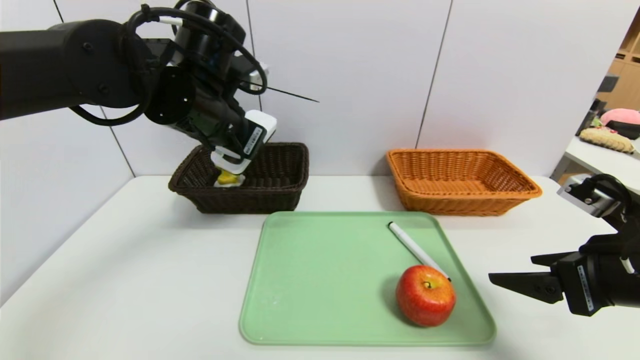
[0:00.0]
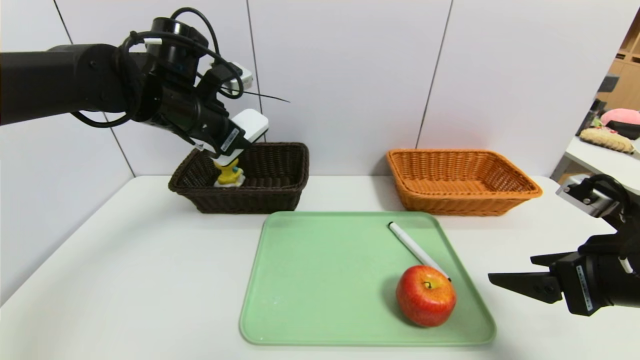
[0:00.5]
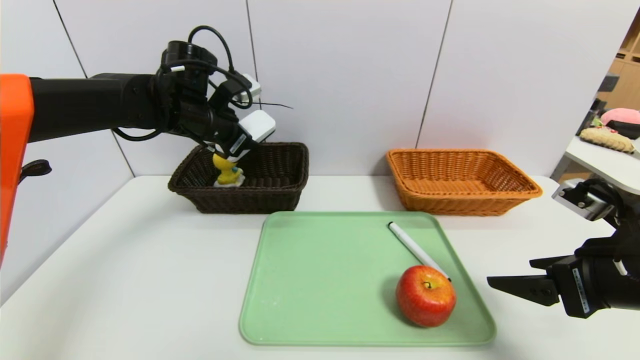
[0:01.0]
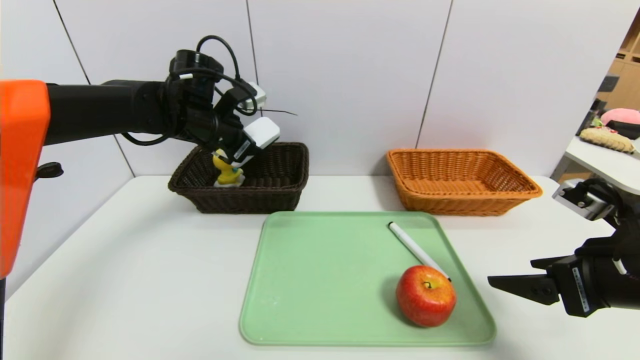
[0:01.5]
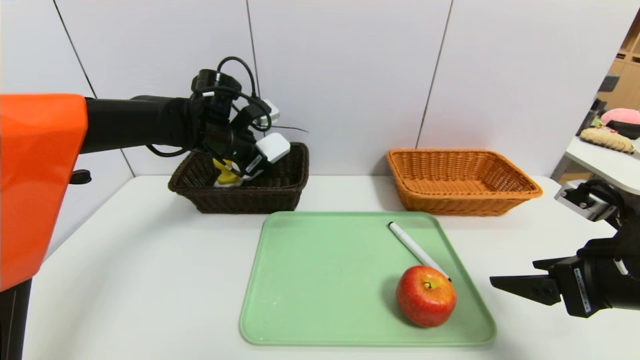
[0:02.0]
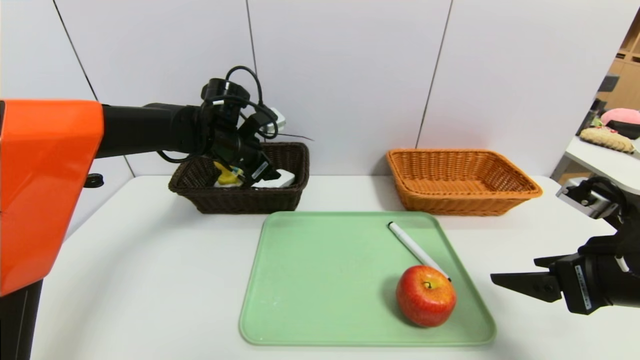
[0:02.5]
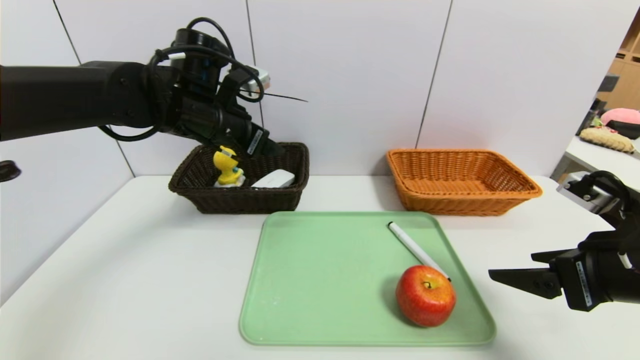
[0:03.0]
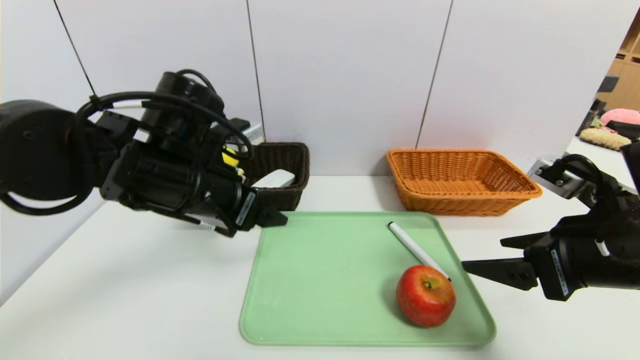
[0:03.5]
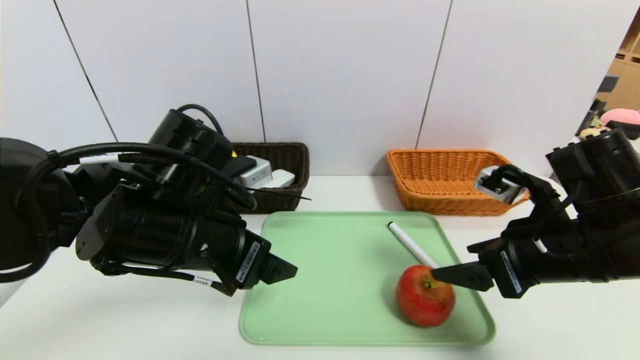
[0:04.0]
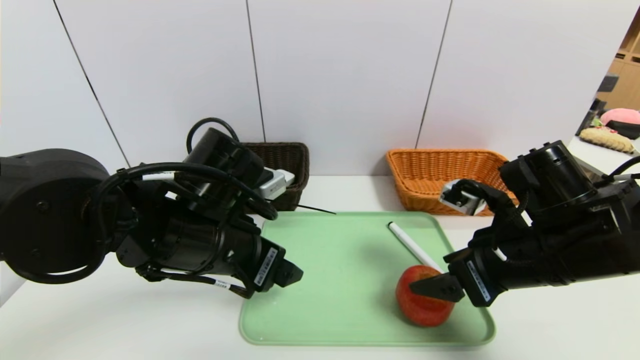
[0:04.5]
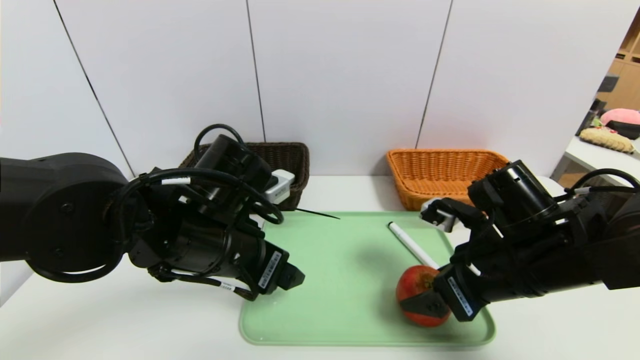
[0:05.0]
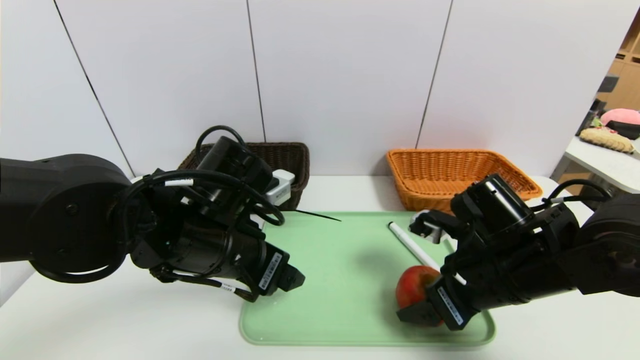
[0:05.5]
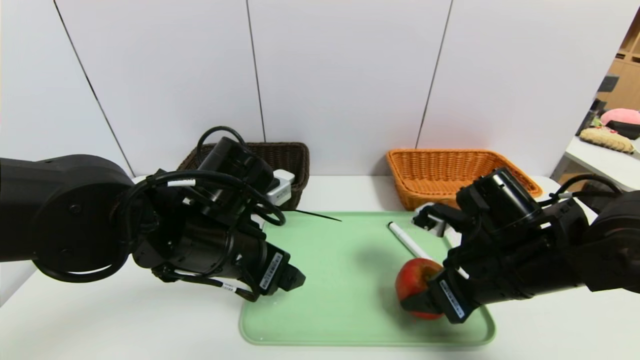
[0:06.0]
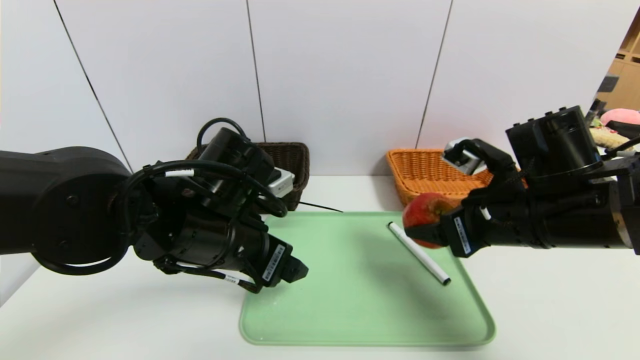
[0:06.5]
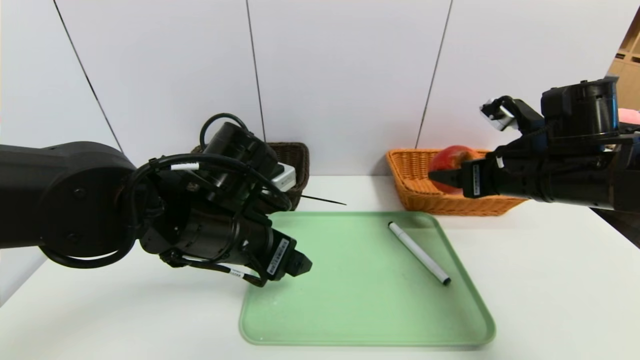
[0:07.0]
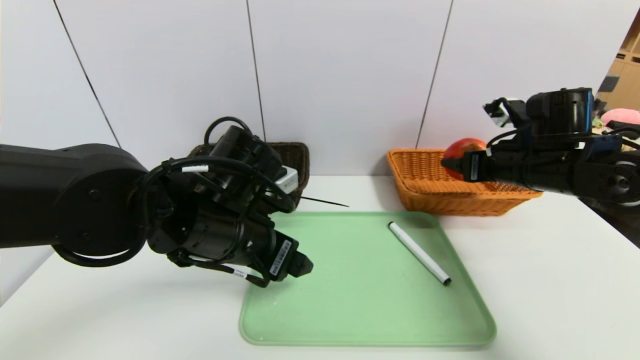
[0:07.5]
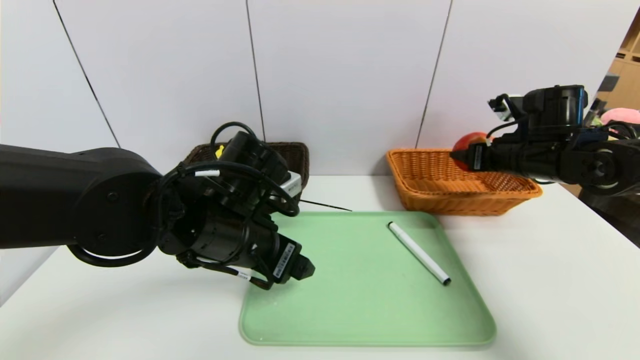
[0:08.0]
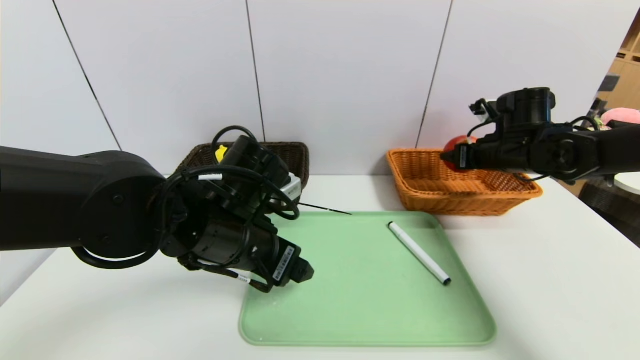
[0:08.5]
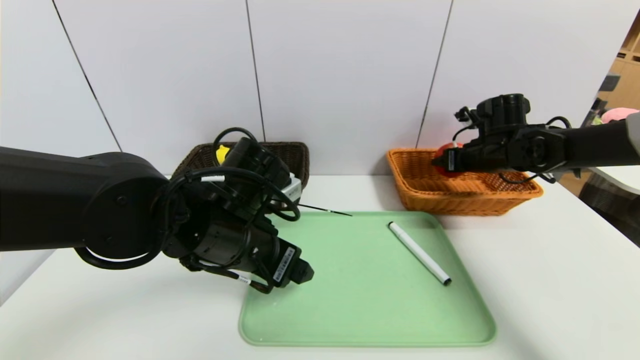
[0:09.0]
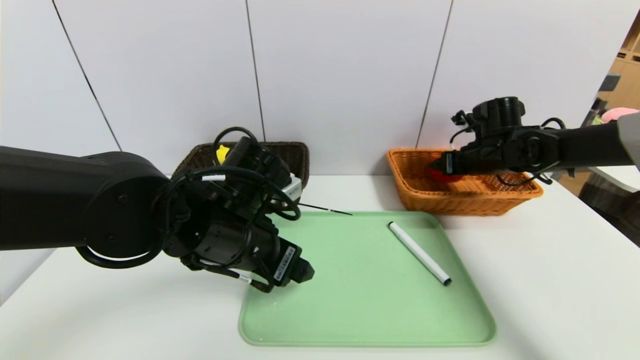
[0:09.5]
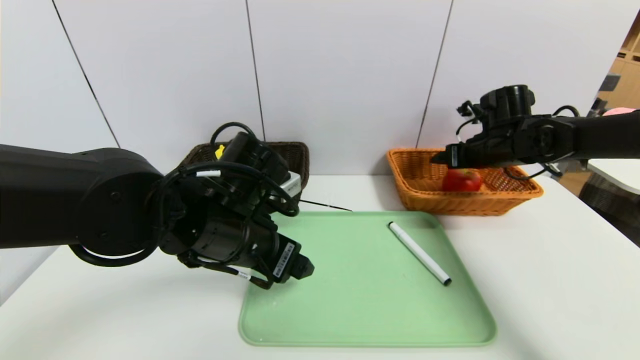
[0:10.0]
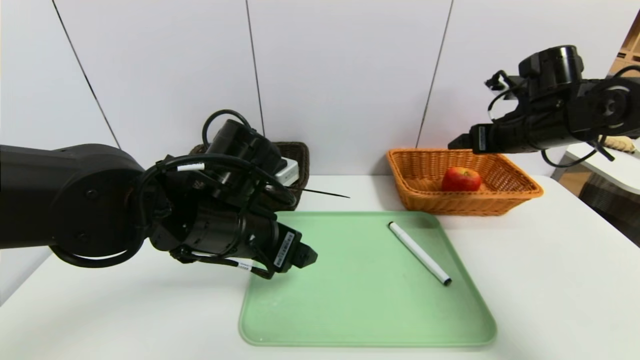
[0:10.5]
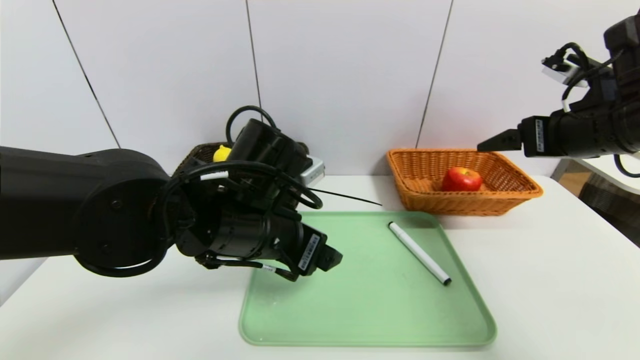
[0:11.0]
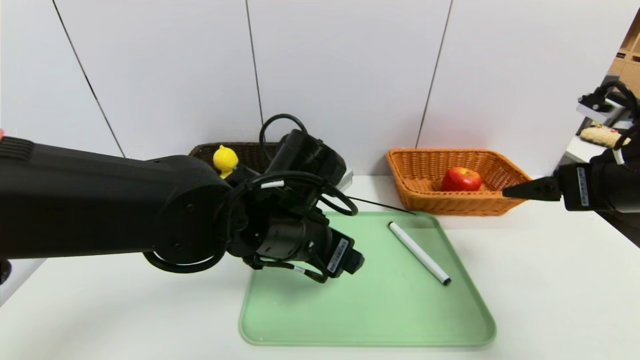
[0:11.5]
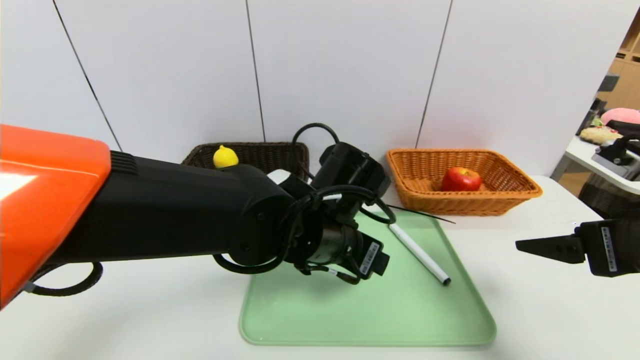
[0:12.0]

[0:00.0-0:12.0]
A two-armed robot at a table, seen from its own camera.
Task of the whole recording: place the food in the right basket with the right gripper, and place the non food items in the left basket with the left gripper.
Step, 0:00.0 to 0:03.0: Grasp the white eraser and put it in the left basket.
Step, 0:03.5 to 0:10.5: Grasp the apple and put it in the right basket.
0:00.0 to 0:02.0: The left gripper heads forward and downward, covering about 15 cm.
0:02.0 to 0:04.0: The left gripper moves backward, some 20 cm, and opens its fingers, while the right gripper shifts about 5 cm to the left.
0:04.0 to 0:06.0: The right gripper changes place by some 5 cm, and closes its fingers.
0:06.0 to 0:08.0: The right gripper is displaced forward and to the right by approximately 20 cm.
0:08.0 to 0:10.0: The right gripper shifts roughly 5 cm forward, and opens its fingers.
0:10.0 to 0:12.0: The right gripper shifts about 25 cm backward; the left gripper travels to the right by roughly 10 cm.

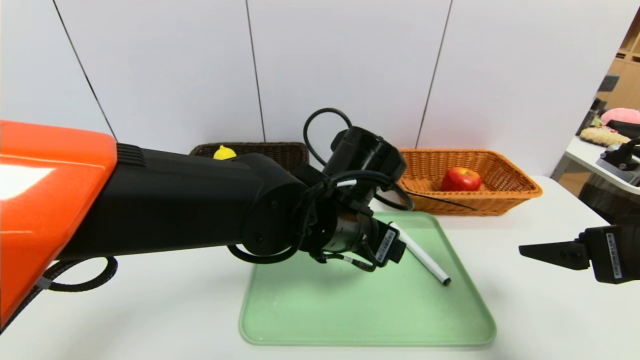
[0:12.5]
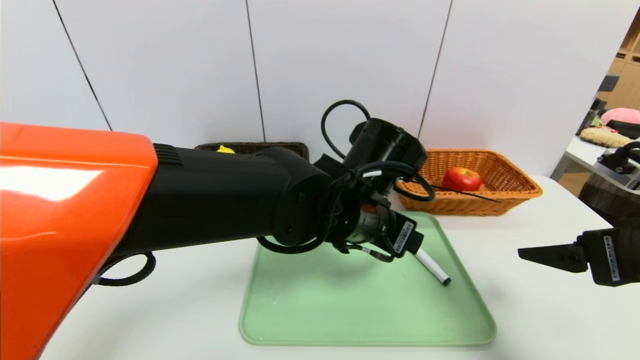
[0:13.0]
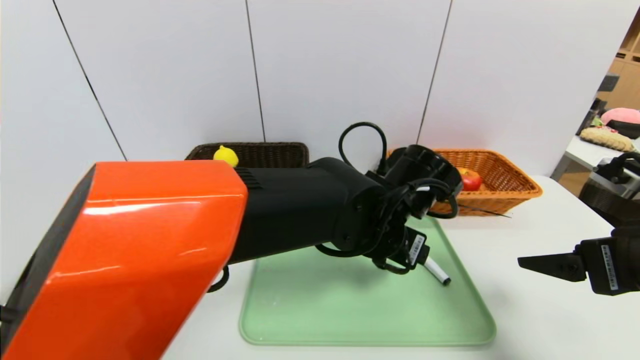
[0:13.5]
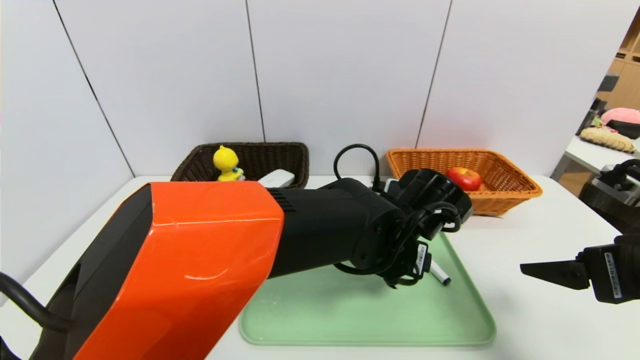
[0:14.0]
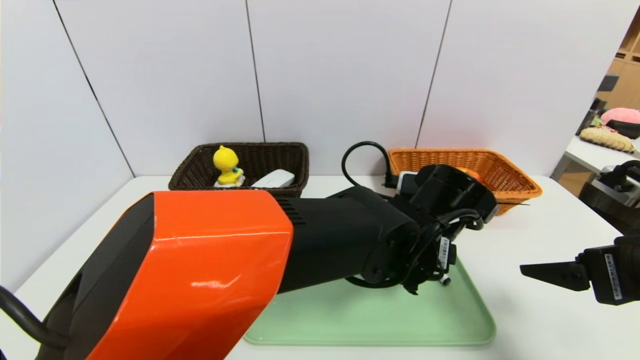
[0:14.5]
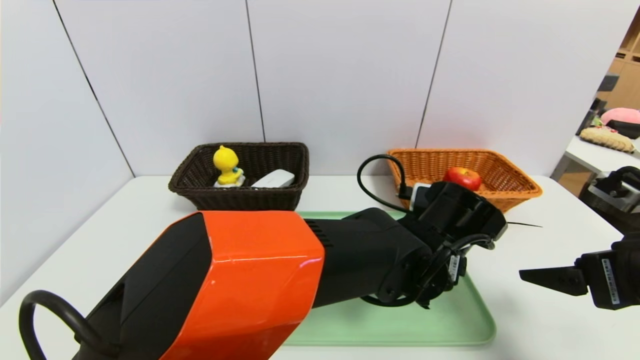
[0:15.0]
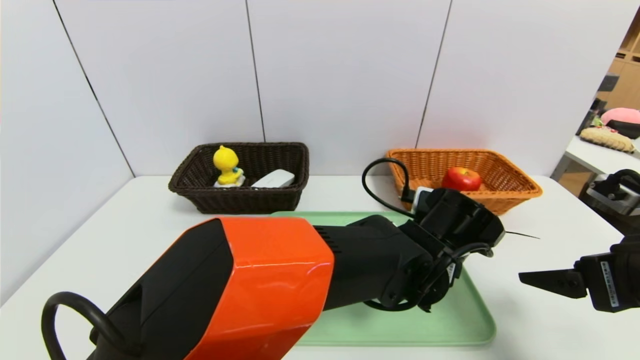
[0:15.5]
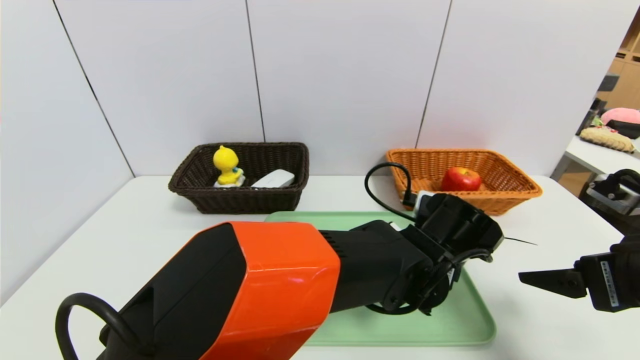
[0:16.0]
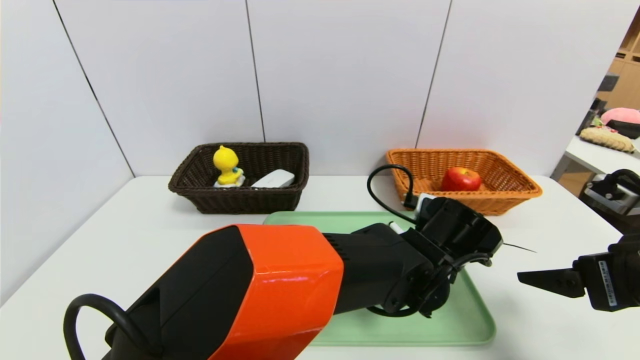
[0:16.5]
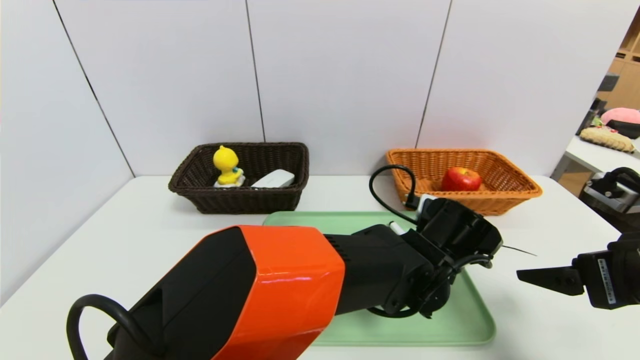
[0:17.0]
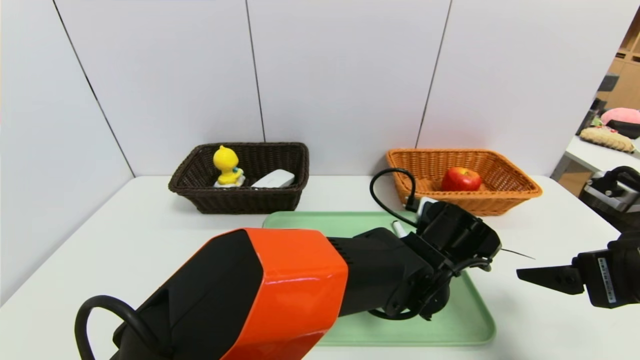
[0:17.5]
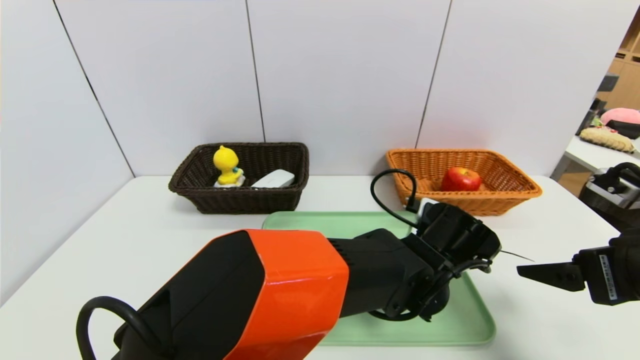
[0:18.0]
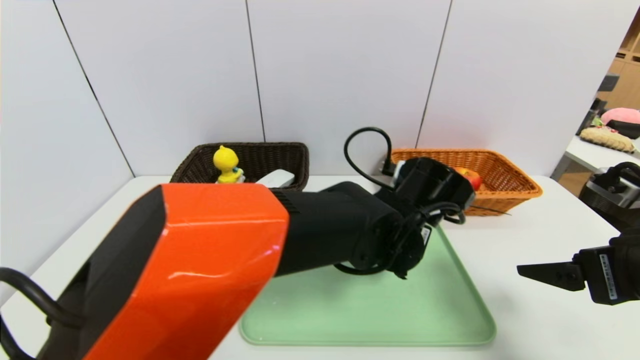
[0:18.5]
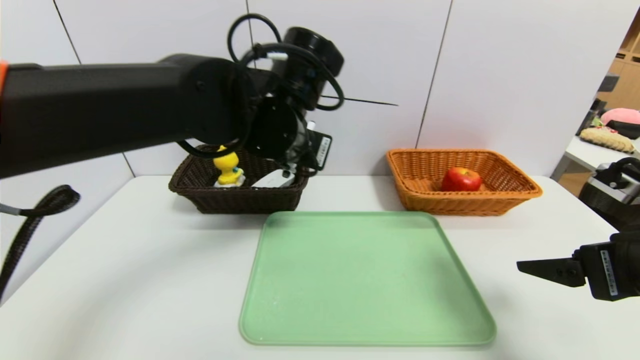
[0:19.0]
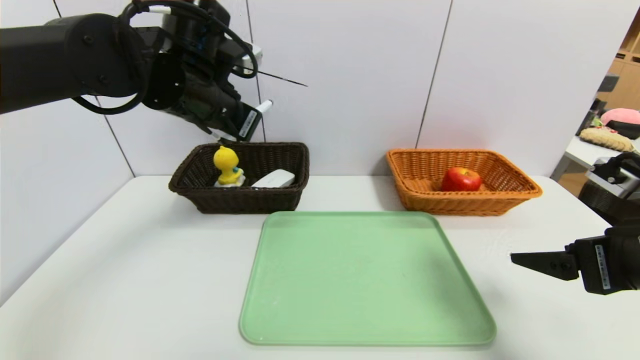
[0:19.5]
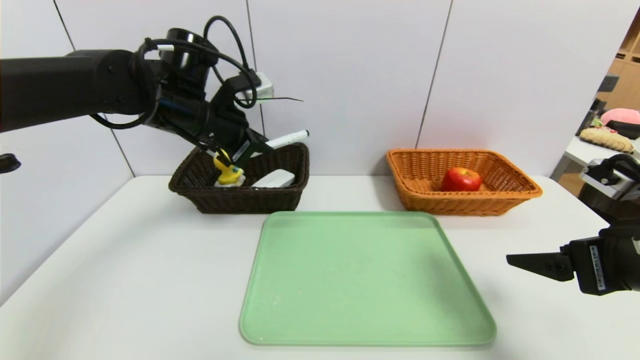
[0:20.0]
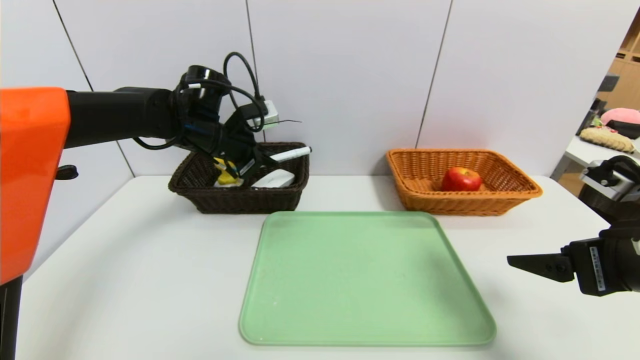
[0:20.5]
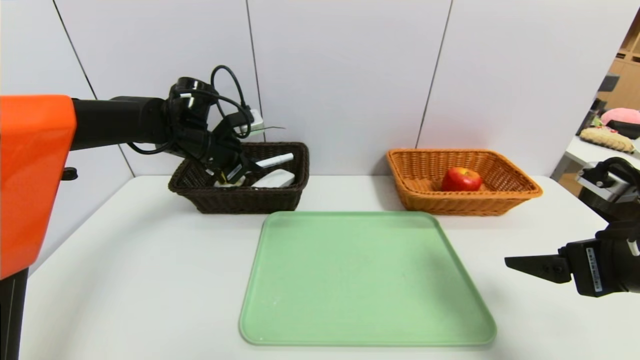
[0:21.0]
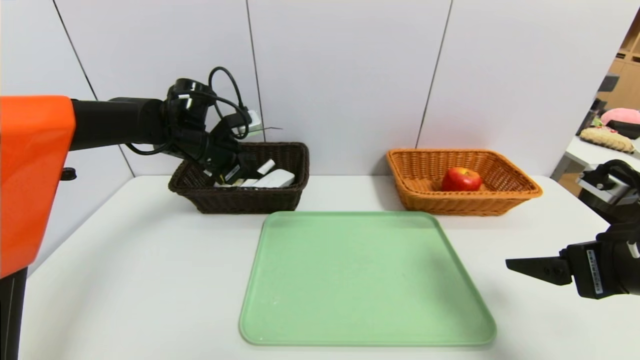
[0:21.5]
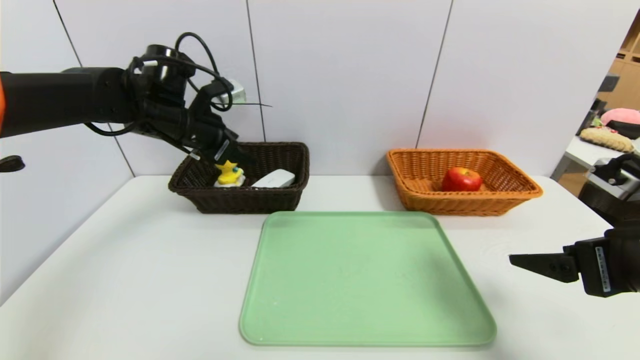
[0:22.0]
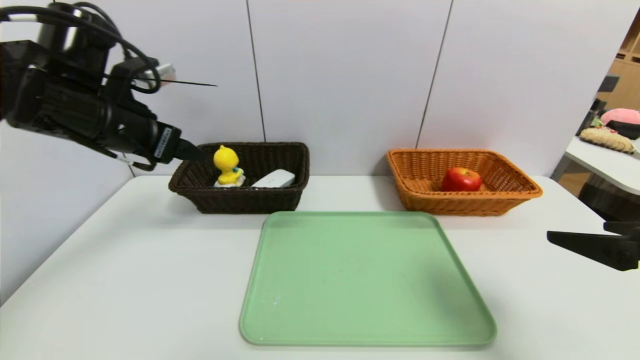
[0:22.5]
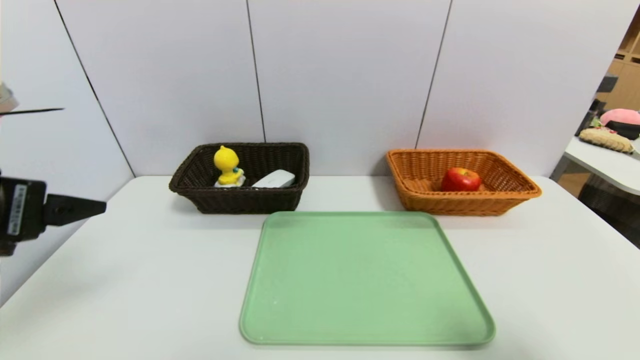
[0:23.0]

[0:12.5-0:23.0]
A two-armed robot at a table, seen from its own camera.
Task of the whole recording: place the food in the right basket with the right gripper, and place the non food items in the left basket with the left gripper.
Step, 0:12.5 to 0:22.0: Grasp the black marker and put it in the left basket.
0:12.5 to 0:14.5: The left gripper heads to the right, covering roughly 10 cm.
0:14.5 to 0:16.5: The left gripper changes place by about 5 cm.
0:16.5 to 0:19.0: The left gripper is displaced to the left and upward by some 25 cm, and closes its fingers.
0:19.0 to 0:21.0: The left gripper shifts some 20 cm to the left, forward and downward.
0:21.0 to 0:23.0: The left gripper heads backward, covering roughly 30 cm, and opens; the right gripper heads backward, covering approximately 15 cm.
